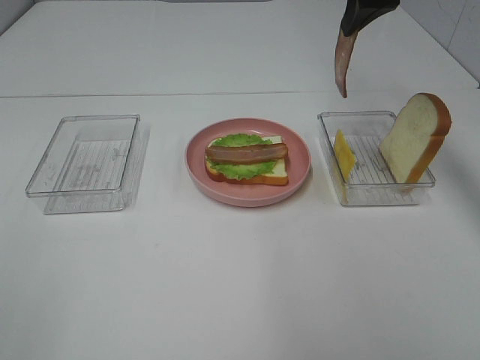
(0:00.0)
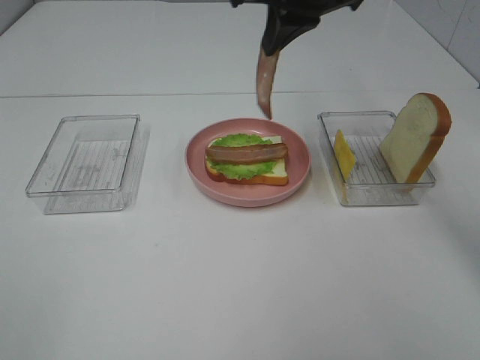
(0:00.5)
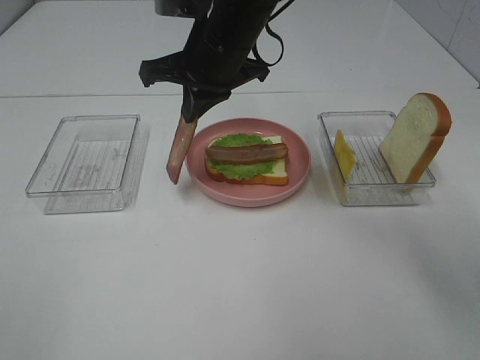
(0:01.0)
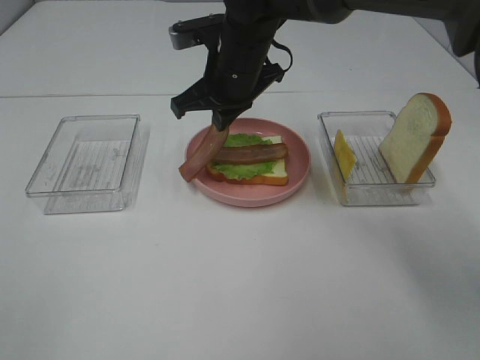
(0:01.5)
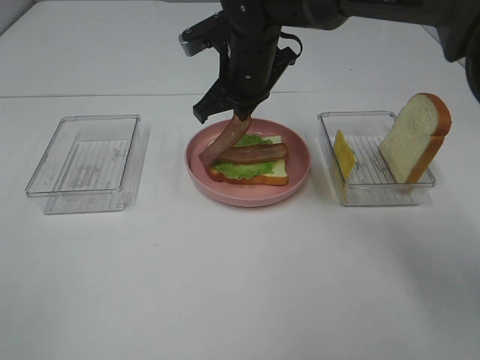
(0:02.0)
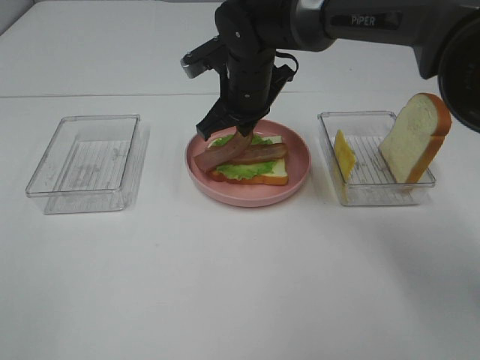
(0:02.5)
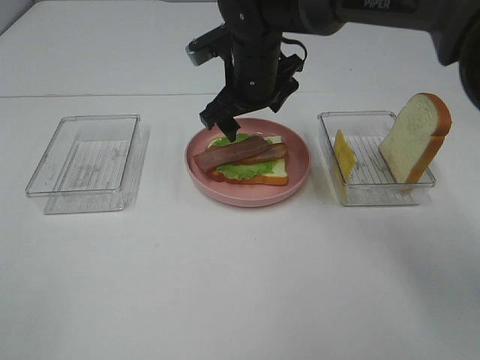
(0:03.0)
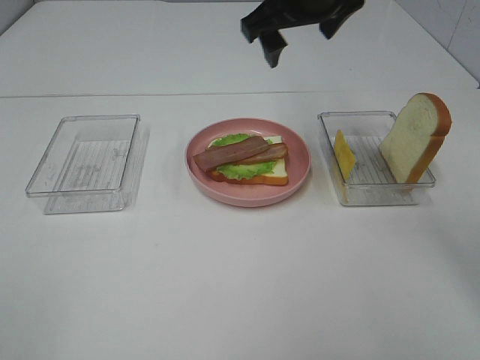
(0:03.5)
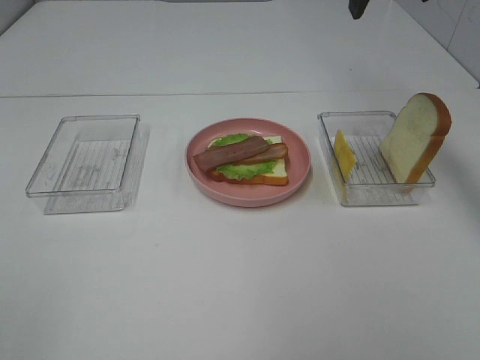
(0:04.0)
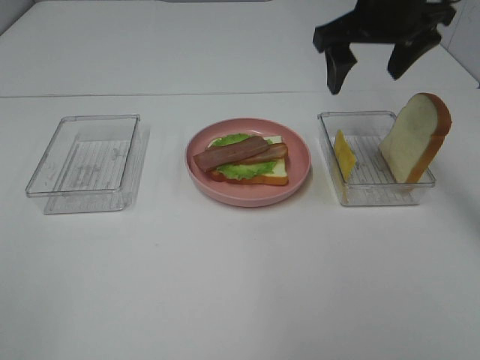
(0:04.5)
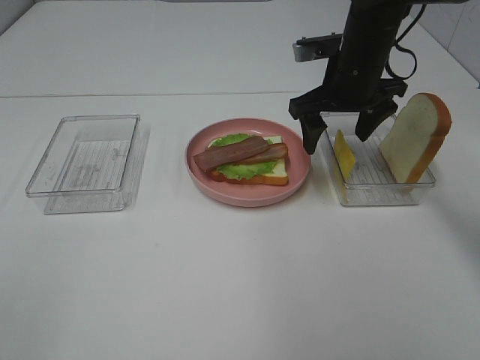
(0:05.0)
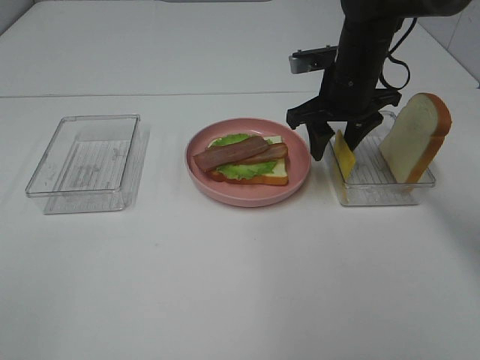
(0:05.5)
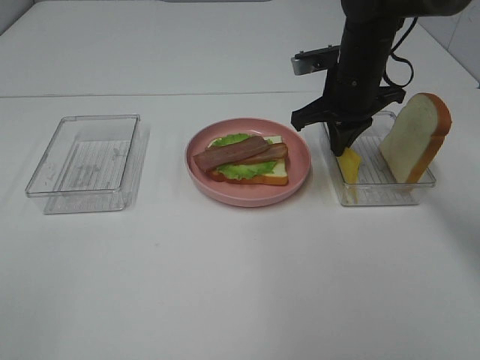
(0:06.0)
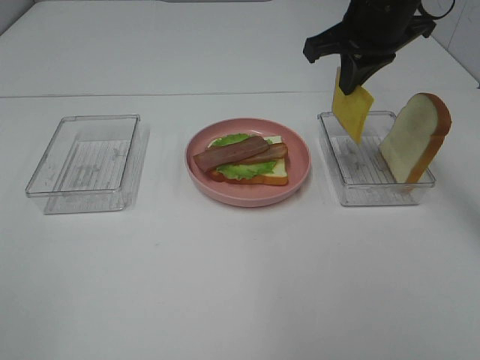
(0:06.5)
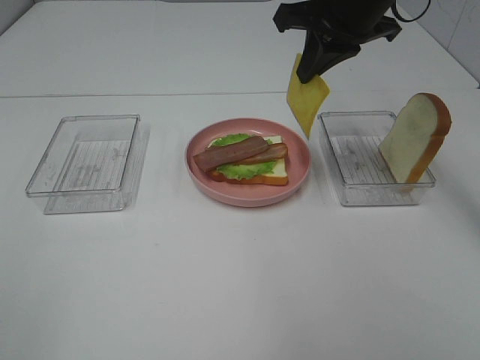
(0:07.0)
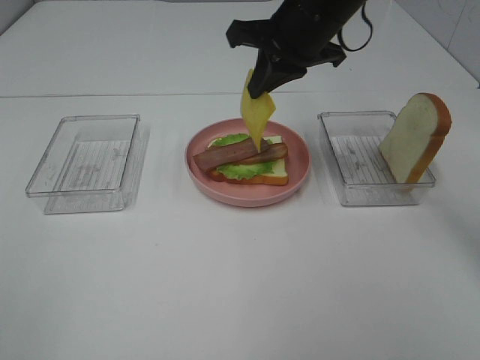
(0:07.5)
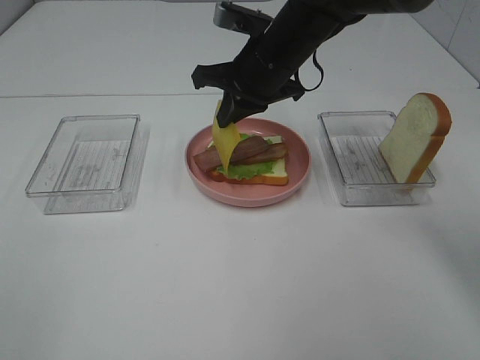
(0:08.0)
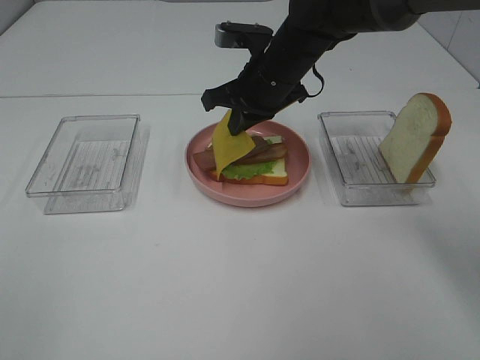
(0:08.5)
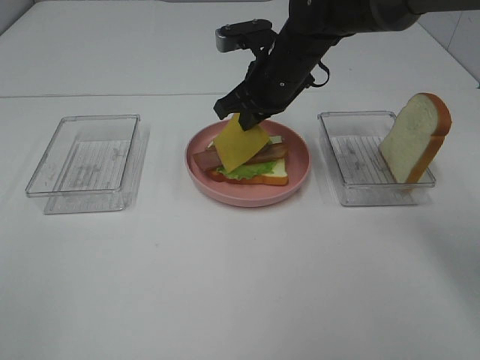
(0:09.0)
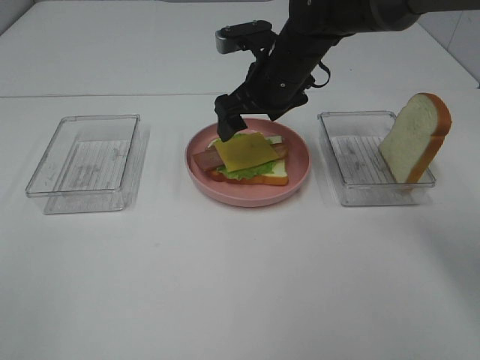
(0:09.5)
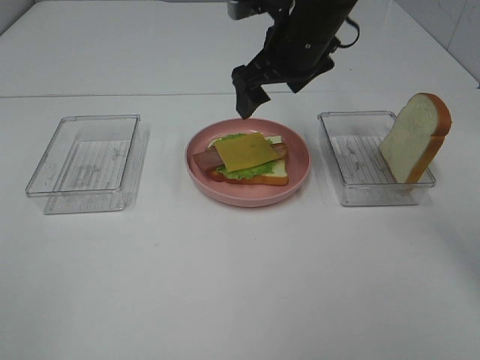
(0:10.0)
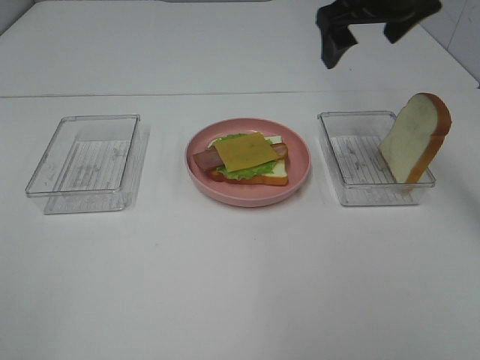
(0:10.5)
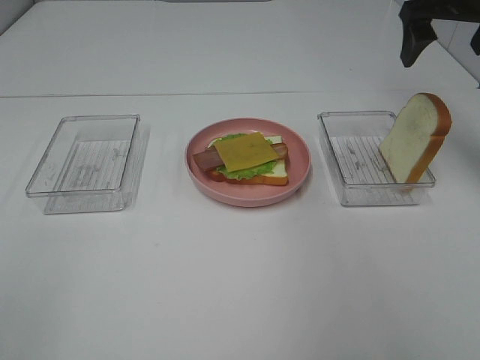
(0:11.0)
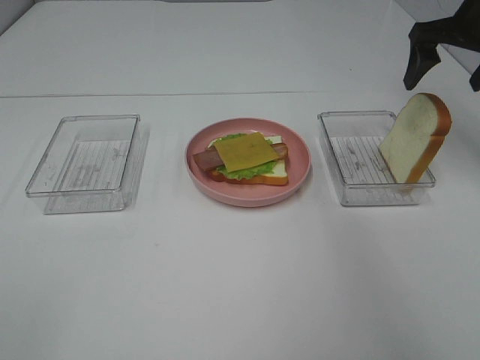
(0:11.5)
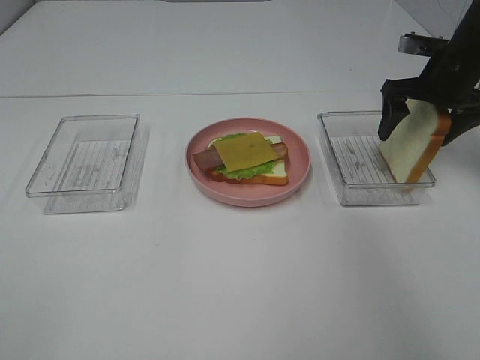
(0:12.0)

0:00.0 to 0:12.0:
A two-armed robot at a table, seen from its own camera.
Task of the whole recording: Make sandwiches.
Step, 0:00.0 to 0:03.0: Right hand:place bacon on bacon.
Step, 0:03.5 to 0:05.5: Right hand:grab the cheese slice.
Step, 0:06.0 to 0:09.5: Right hand:place the cheese slice on top of the bacon.
0:00.0 to 0:02.0: The right gripper goes about 20 cm to the left and downward.
0:02.0 to 0:04.0: The right gripper travels upward and to the right by about 25 cm, and opens up.
0:04.0 to 0:06.0: The right gripper shifts some 20 cm downward, and closes up.
0:06.0 to 0:08.0: The right gripper is displaced to the left by approximately 10 cm, and reaches approximately 10 cm upward, then returns.
0:08.0 to 0:10.0: The right gripper moves approximately 5 cm, and opens up.
0:10.0 to 0:12.0: The right gripper heads to the right, covering some 20 cm.

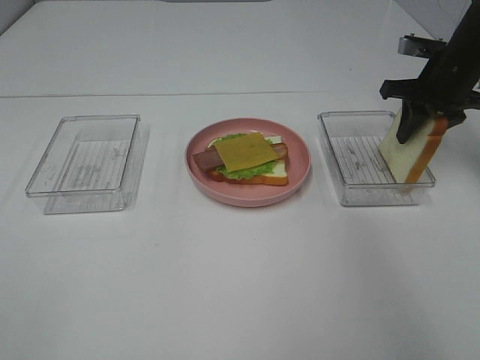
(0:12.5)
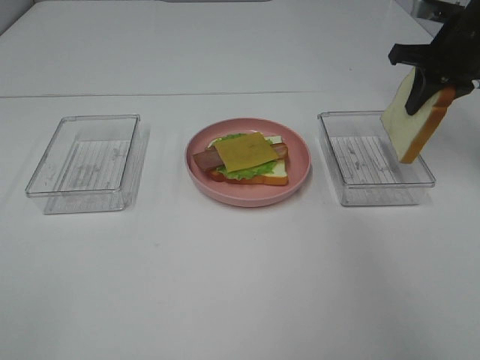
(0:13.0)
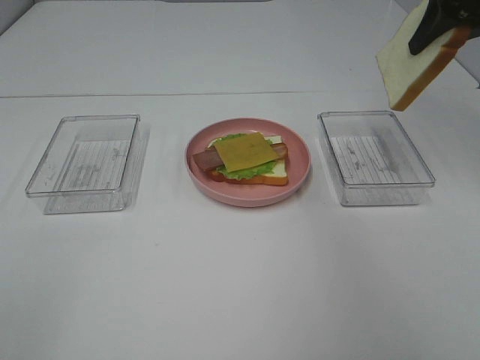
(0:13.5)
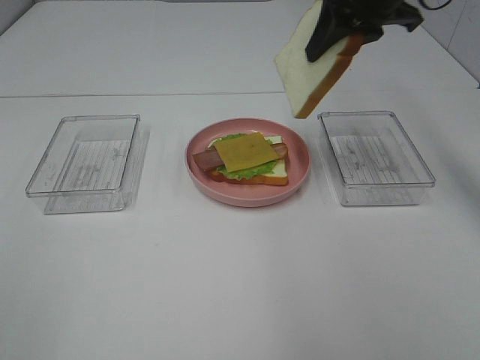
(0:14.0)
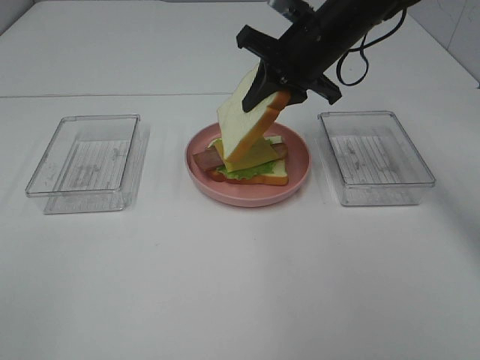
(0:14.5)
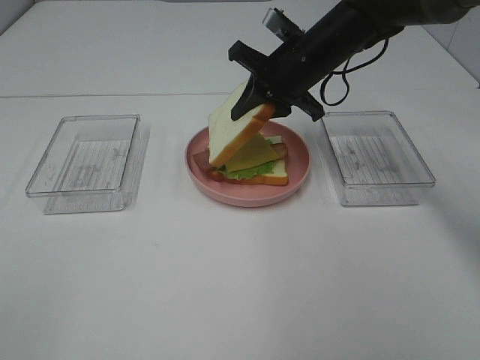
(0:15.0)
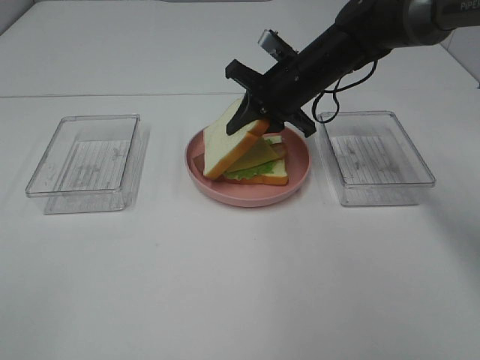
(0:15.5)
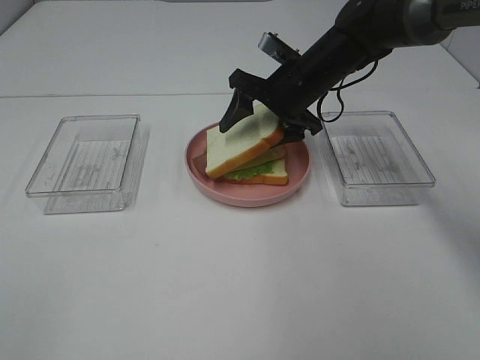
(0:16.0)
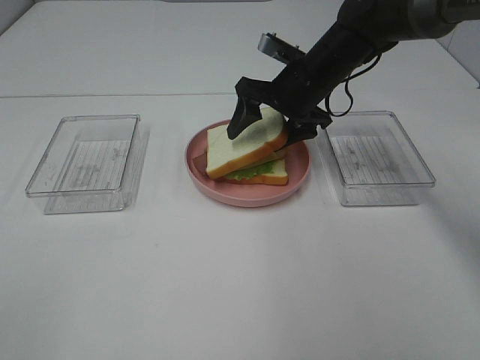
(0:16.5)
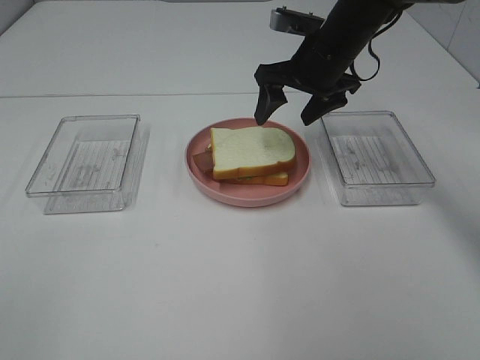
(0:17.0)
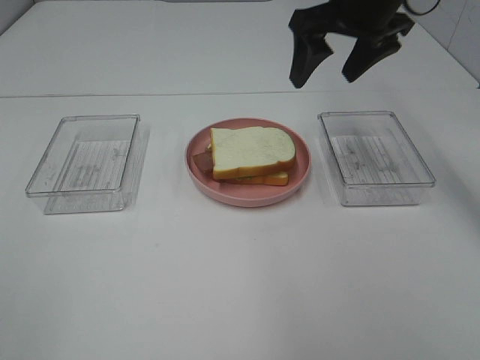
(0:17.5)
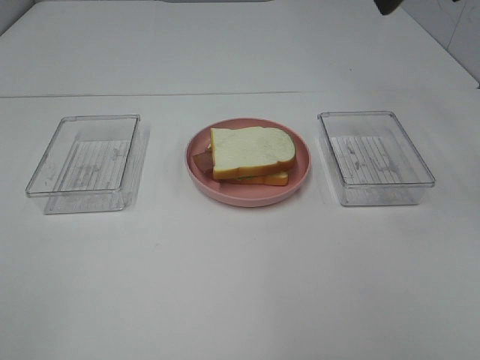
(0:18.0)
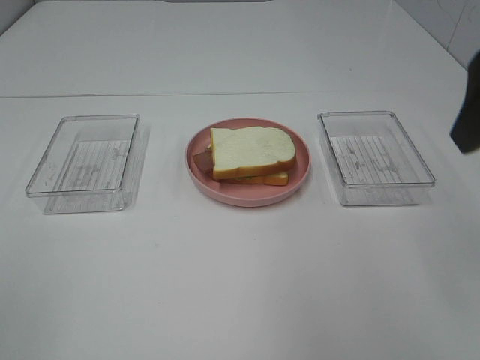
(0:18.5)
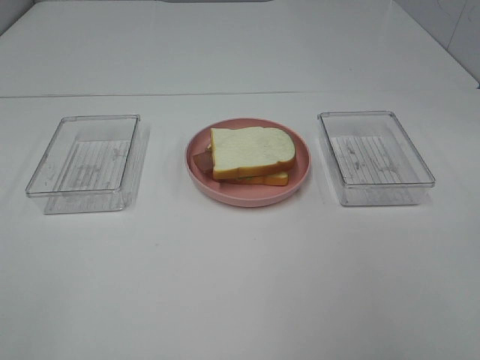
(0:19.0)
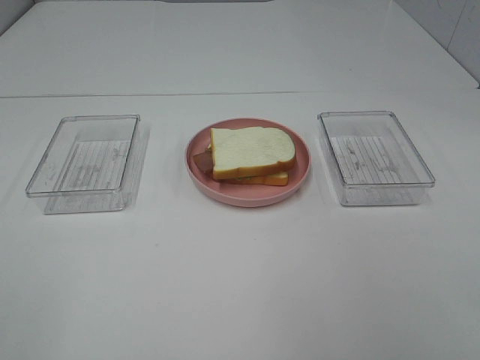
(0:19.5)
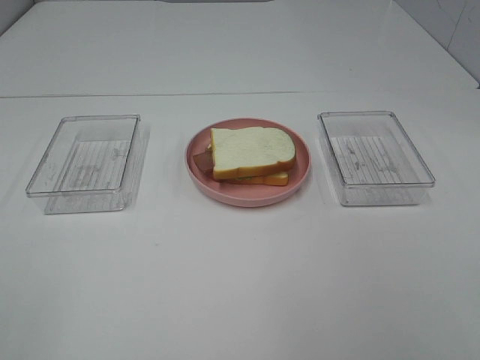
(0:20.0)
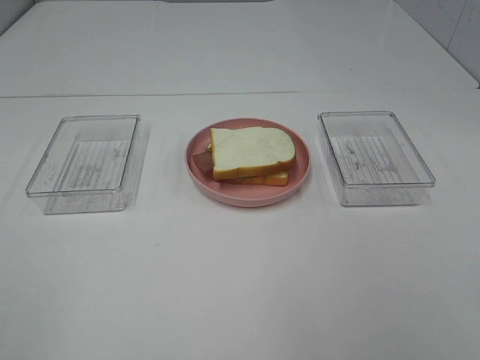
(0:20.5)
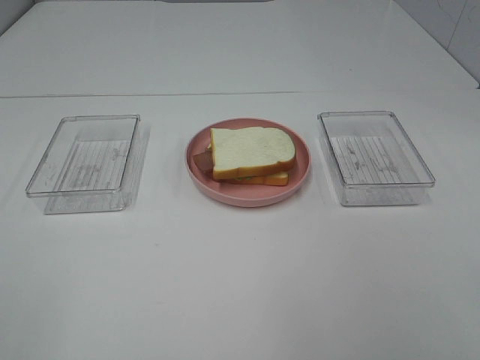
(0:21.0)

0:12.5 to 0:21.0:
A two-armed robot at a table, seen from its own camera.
Task of the whole recording: Make sandwiches.
Step, 0:13.0 to 0:17.0: Right hand:place the bread slice on the cheese slice.
0:12.5 to 0:14.5: The right gripper heads to the left, covering roughly 20 cm.
0:14.5 to 0:16.5: The right gripper heads downward, covering some 5 cm, and opens its fingers.
0:16.5 to 0:19.0: The right gripper moves backward and to the right, approximately 40 cm.

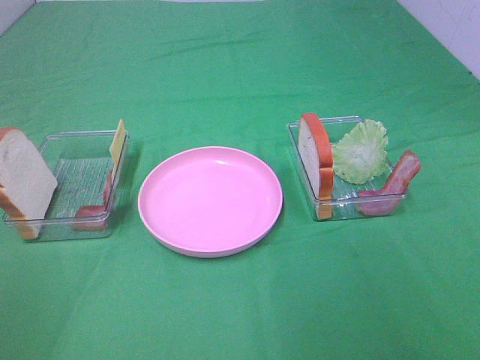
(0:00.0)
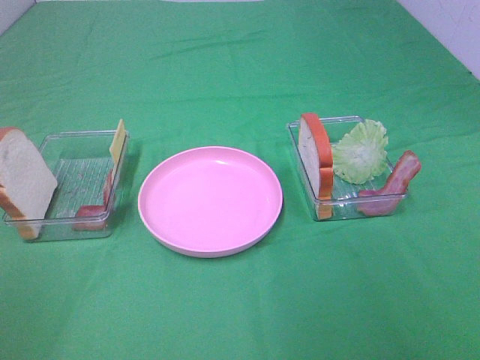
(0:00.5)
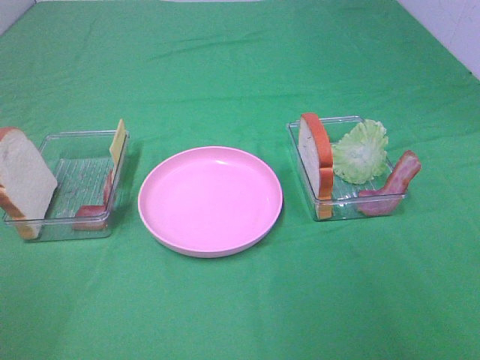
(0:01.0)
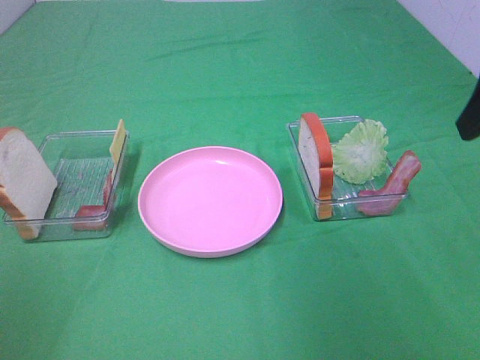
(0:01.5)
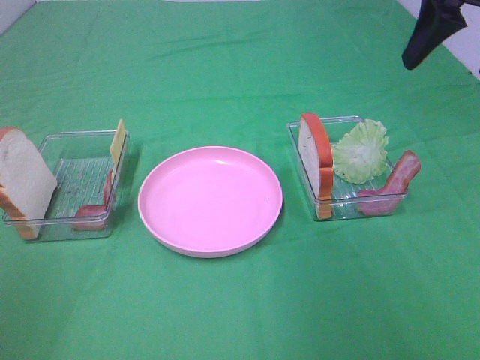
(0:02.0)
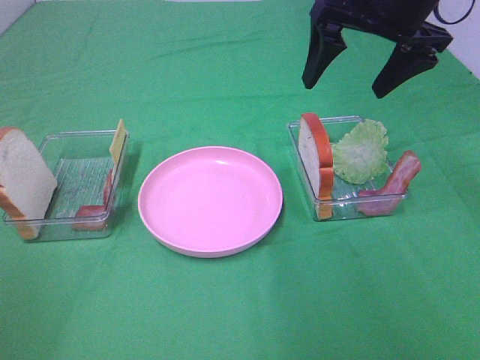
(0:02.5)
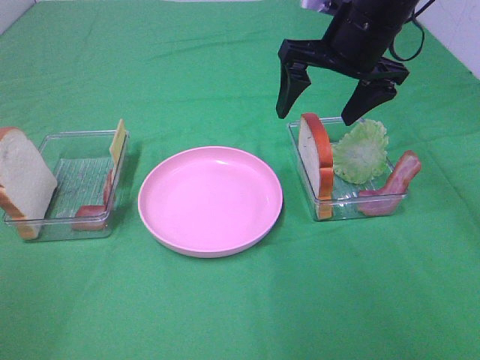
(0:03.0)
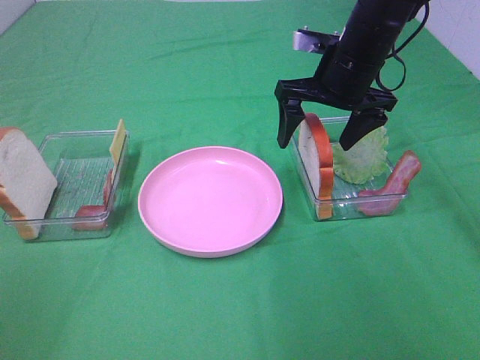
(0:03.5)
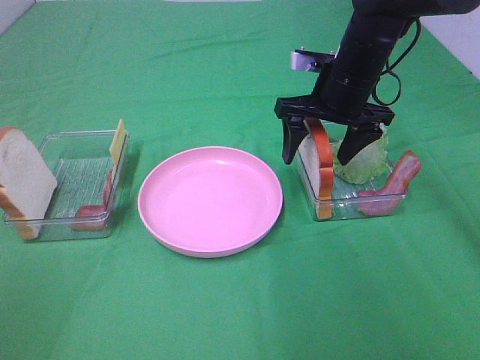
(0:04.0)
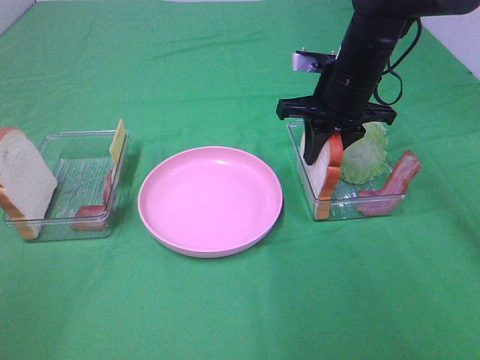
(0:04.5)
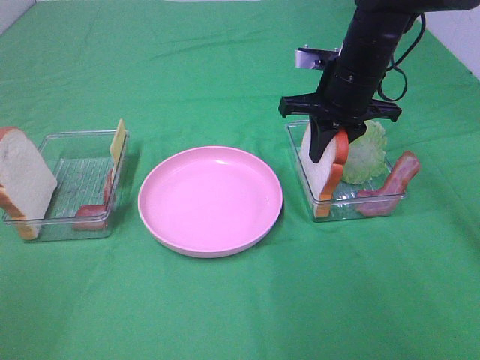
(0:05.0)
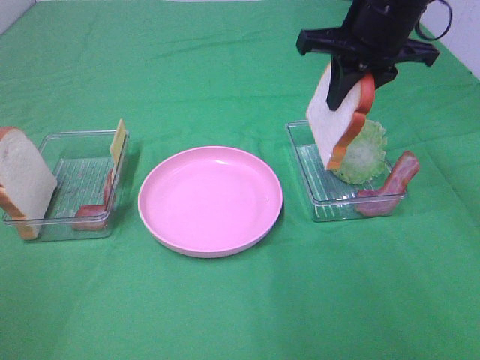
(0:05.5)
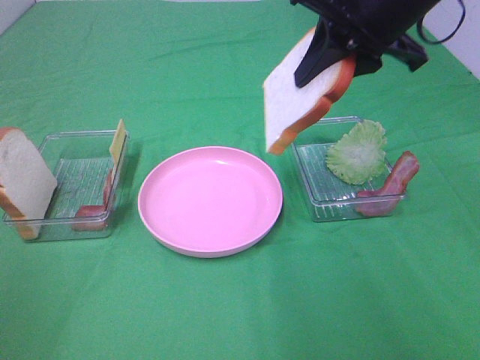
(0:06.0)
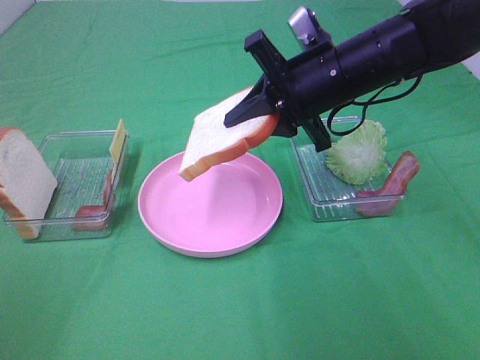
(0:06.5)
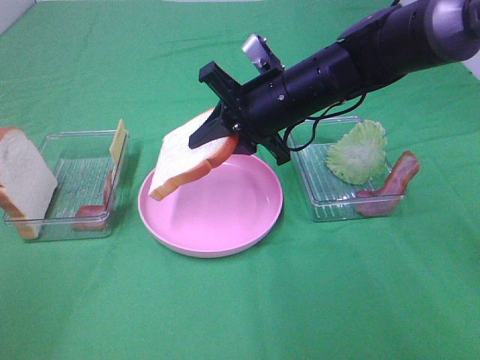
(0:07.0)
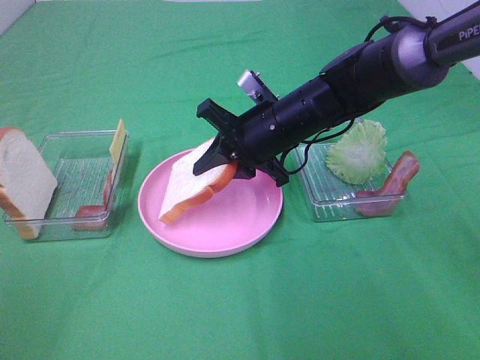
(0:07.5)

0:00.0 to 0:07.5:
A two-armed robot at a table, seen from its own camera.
Task of the whole recording: Make sandwiches.
Step, 0:00.0 to 0:04.5: Right hand:grab the bread slice.
0:00.0 to 0:02.0: The right gripper is displaced forward by roughly 35 cm.
0:02.0 to 0:04.0: The right gripper is displaced downward, to the left and forward by approximately 20 cm.
0:04.0 to 0:05.5: The right gripper travels upward by about 10 cm, and closes up.
0:05.5 to 0:07.5: The right gripper moves downward and to the left, about 15 cm.
